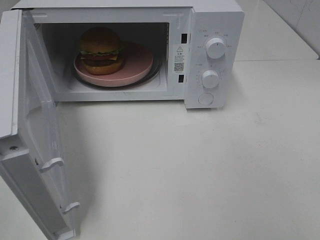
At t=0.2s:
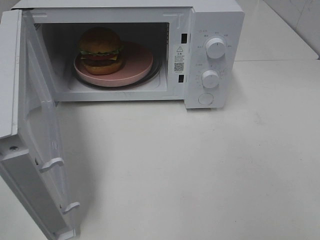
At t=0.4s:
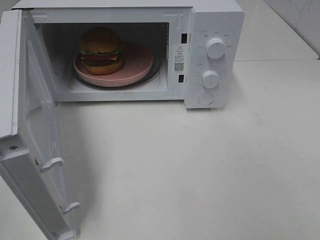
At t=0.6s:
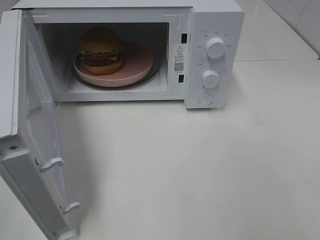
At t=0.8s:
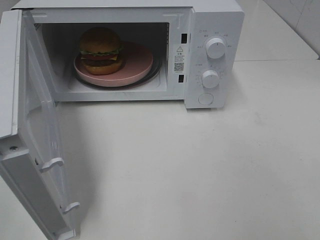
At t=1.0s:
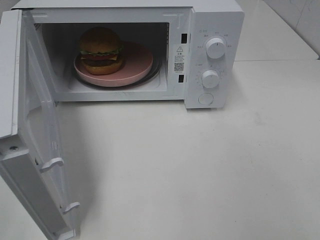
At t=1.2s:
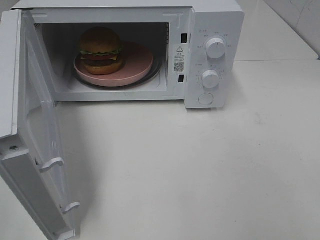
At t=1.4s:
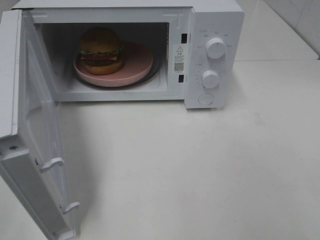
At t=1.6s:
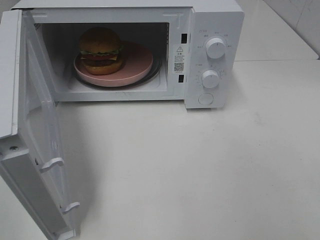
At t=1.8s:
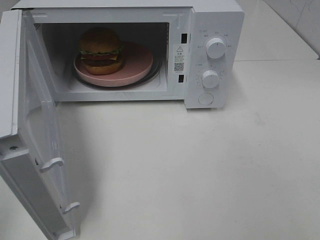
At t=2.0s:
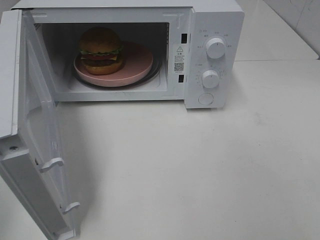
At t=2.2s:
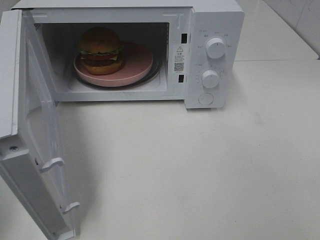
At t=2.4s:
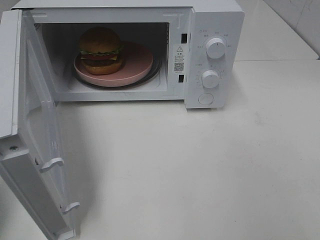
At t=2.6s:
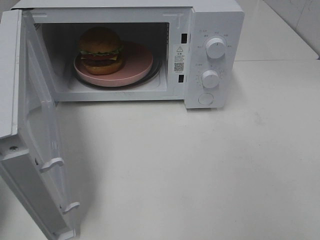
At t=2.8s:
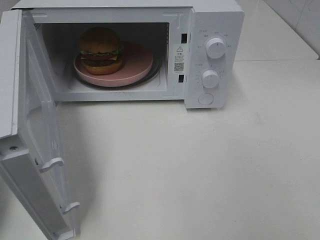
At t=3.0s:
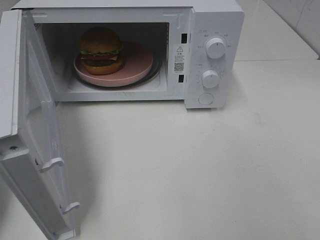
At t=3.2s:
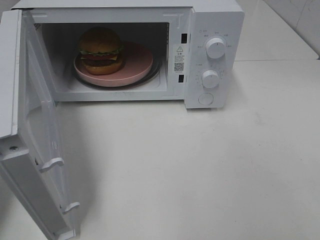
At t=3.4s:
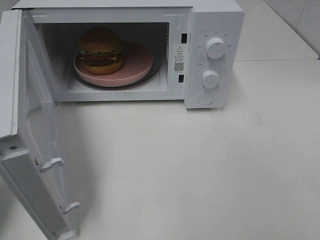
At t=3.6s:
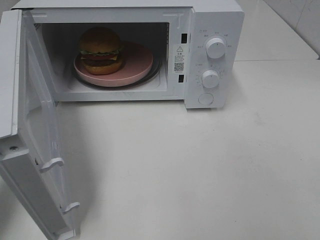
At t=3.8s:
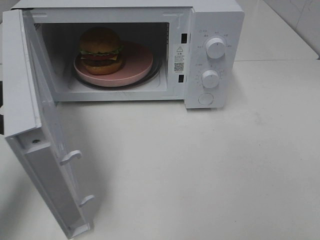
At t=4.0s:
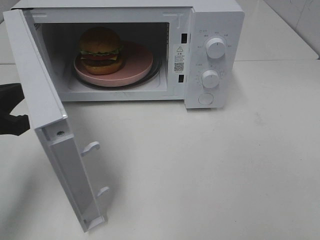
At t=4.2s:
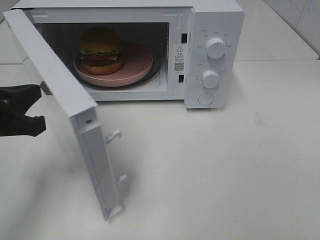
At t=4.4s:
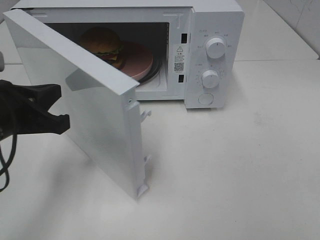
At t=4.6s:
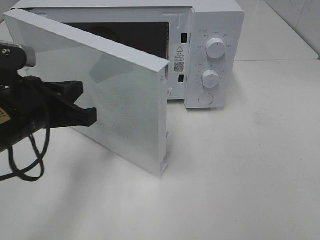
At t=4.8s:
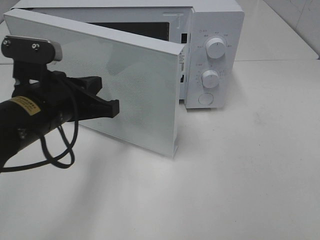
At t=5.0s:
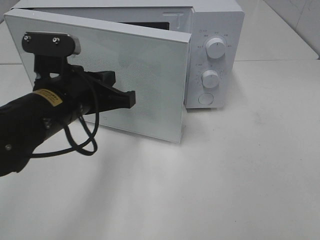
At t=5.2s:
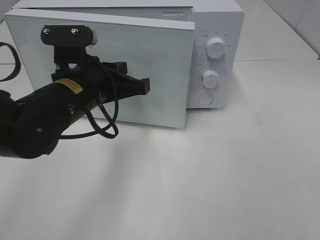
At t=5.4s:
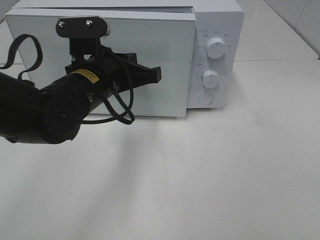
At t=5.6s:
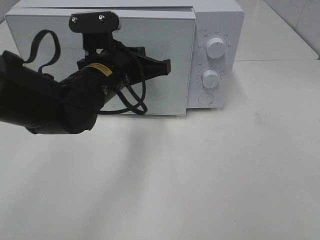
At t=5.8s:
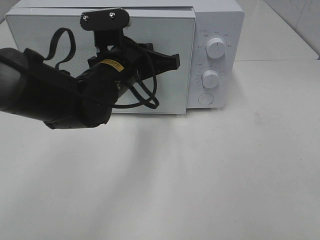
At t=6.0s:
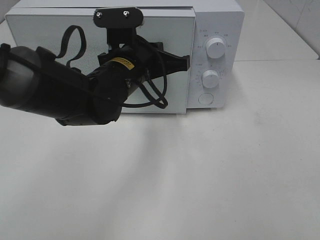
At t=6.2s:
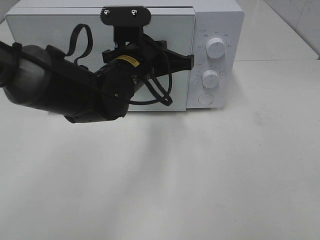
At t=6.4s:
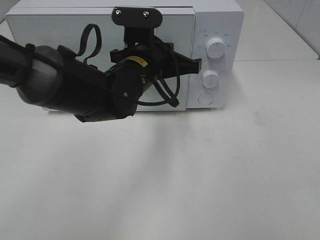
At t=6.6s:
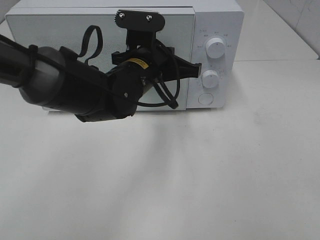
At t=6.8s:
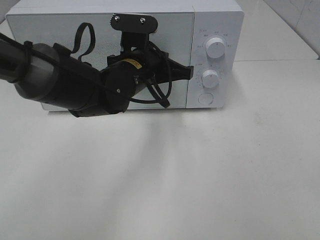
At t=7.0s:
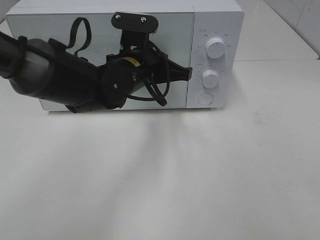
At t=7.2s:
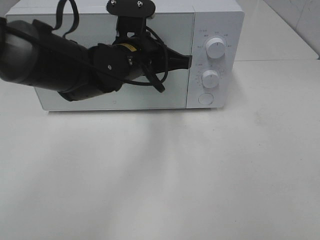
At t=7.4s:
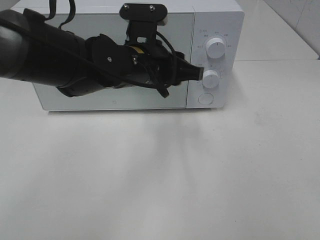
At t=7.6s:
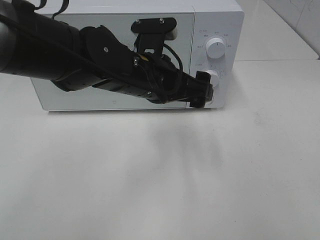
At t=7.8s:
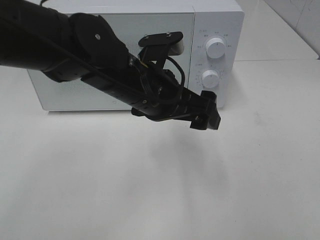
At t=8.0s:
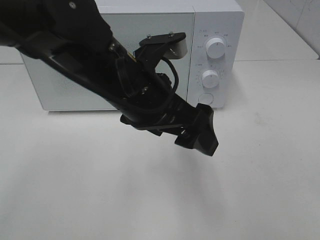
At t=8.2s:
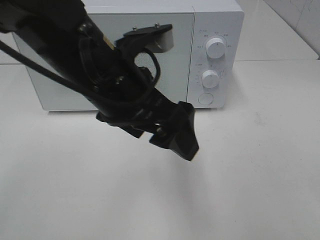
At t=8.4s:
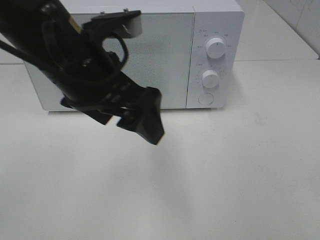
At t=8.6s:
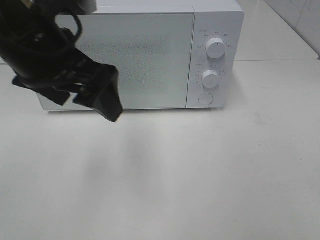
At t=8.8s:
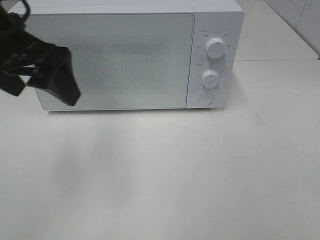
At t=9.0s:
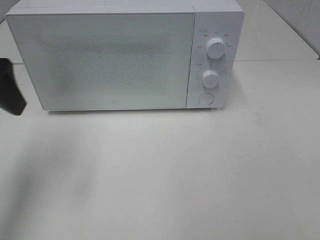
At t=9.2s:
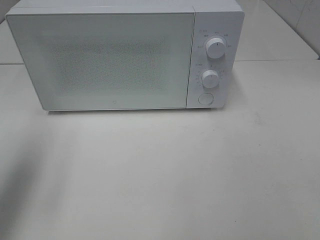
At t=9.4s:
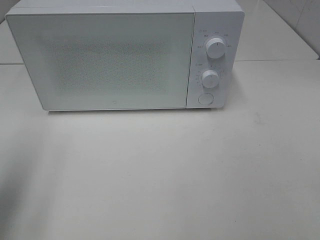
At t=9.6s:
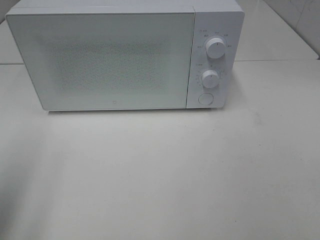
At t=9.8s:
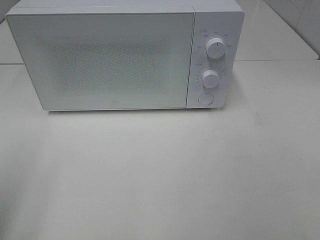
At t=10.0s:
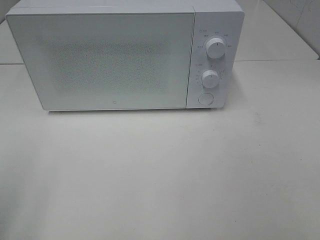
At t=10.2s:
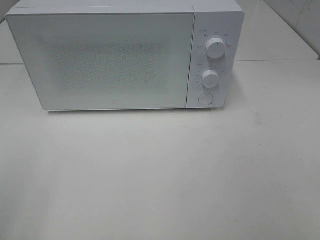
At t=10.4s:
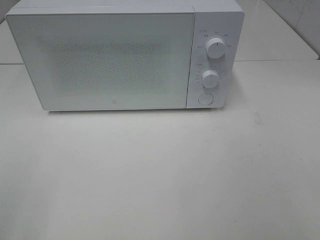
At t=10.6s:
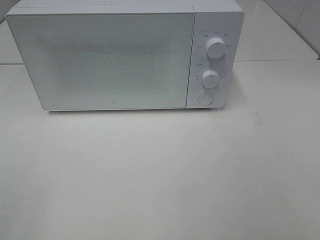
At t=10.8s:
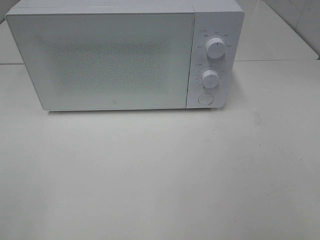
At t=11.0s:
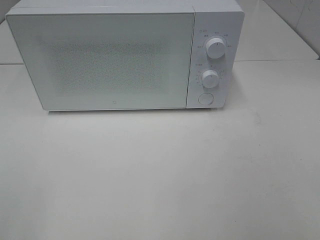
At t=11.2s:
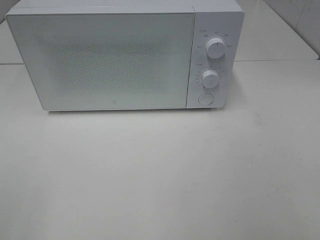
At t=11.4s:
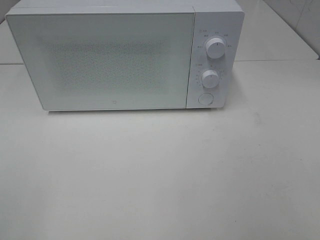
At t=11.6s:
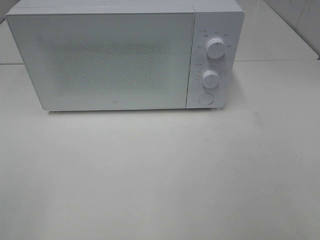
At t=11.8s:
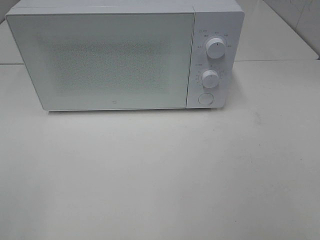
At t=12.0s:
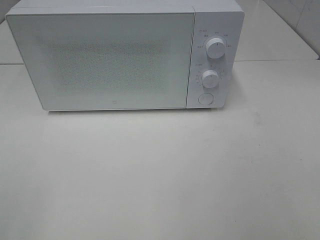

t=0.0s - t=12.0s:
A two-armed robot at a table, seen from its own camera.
Task of the whole recording: Heat the burger.
Step, t=0.0s - t=7.2s: Left hand: close the microwave door.
t=3.0s - t=4.4s: The left gripper travels to the right and downward by about 15 cm.
t=4.4s - t=6.0s: The left gripper is displaced to the right and forward by approximately 20 cm.
t=6.0s - t=7.6s: The left gripper opens.
t=7.6s - t=9.0s: The left gripper is displaced to the left and upward by roughly 25 cm.
t=9.0s - t=10.4s: The left gripper goes approximately 20 cm backward.

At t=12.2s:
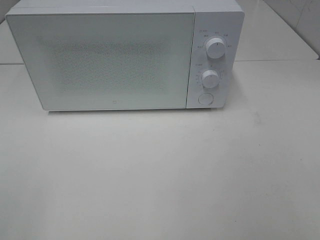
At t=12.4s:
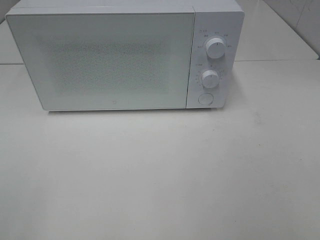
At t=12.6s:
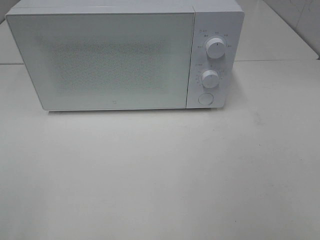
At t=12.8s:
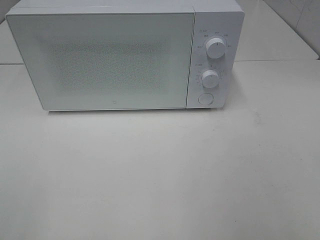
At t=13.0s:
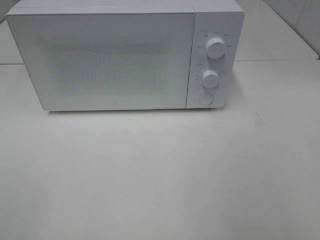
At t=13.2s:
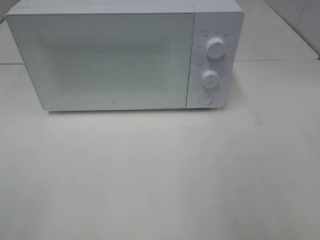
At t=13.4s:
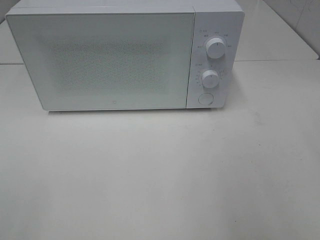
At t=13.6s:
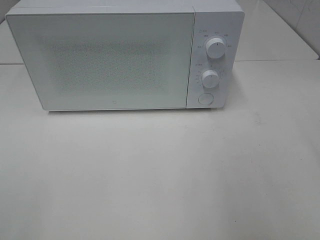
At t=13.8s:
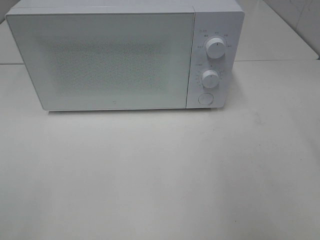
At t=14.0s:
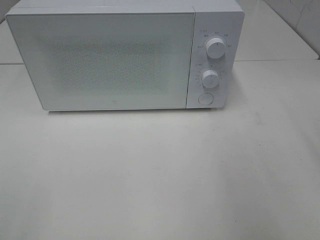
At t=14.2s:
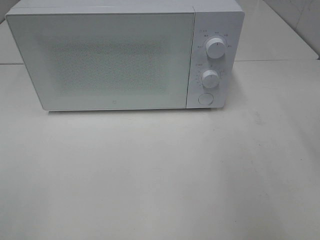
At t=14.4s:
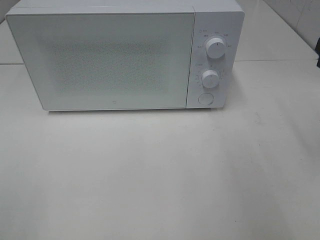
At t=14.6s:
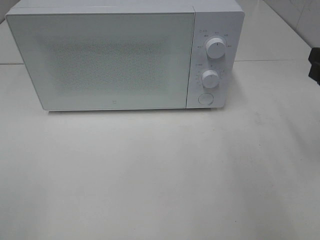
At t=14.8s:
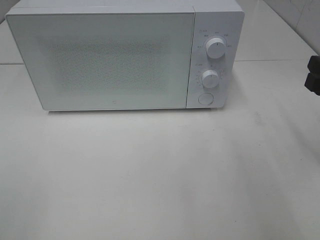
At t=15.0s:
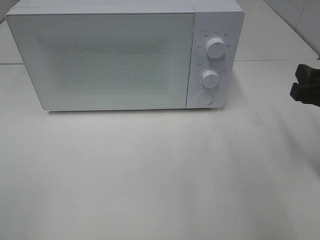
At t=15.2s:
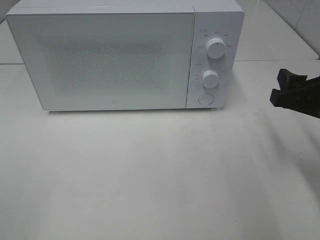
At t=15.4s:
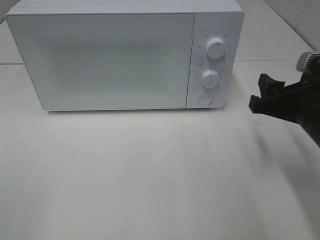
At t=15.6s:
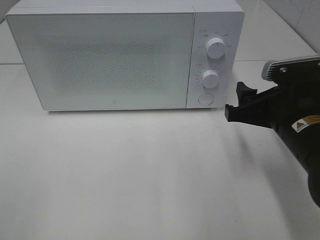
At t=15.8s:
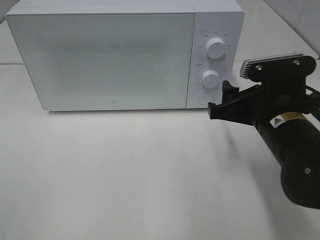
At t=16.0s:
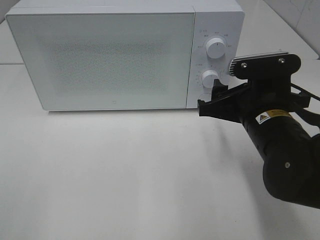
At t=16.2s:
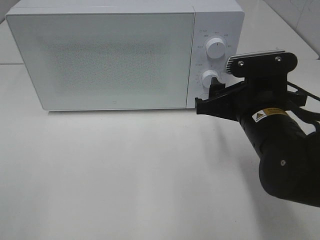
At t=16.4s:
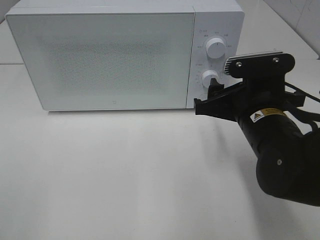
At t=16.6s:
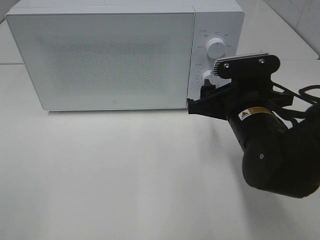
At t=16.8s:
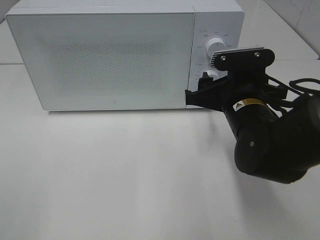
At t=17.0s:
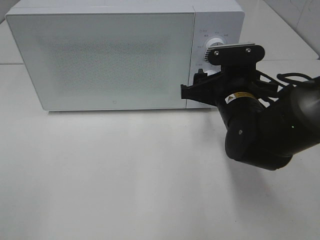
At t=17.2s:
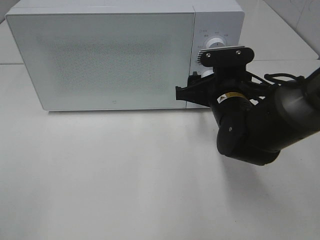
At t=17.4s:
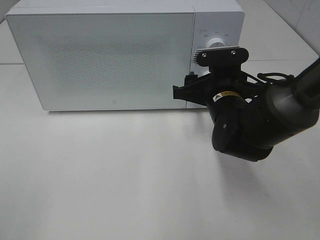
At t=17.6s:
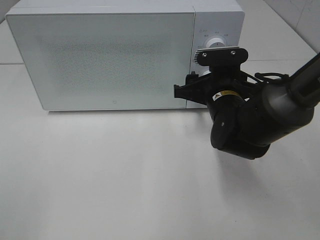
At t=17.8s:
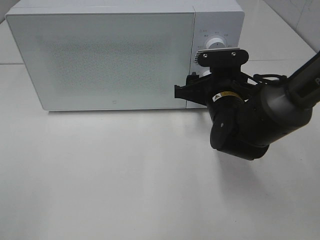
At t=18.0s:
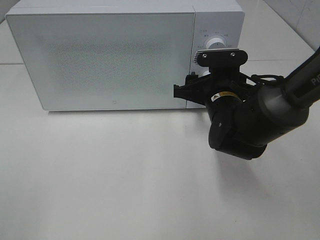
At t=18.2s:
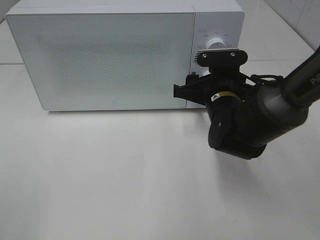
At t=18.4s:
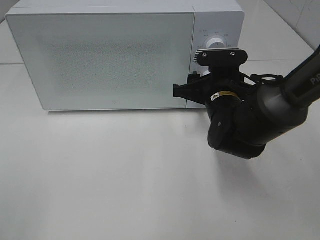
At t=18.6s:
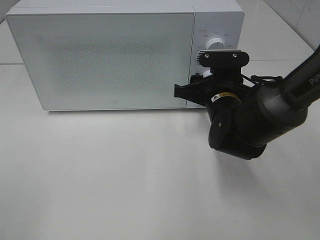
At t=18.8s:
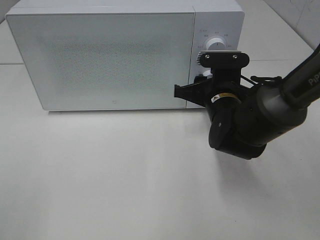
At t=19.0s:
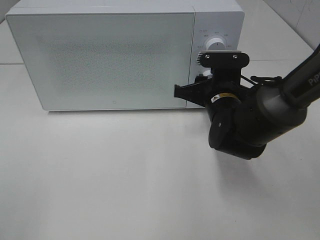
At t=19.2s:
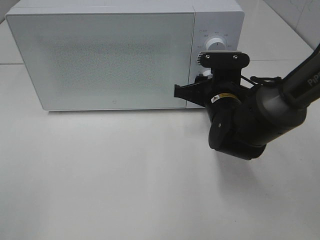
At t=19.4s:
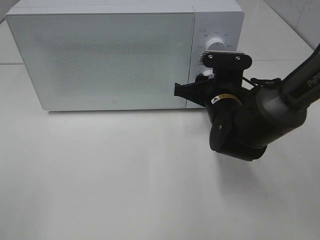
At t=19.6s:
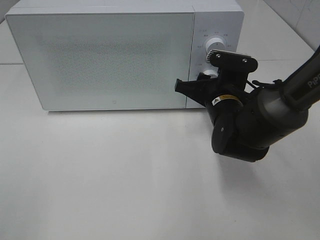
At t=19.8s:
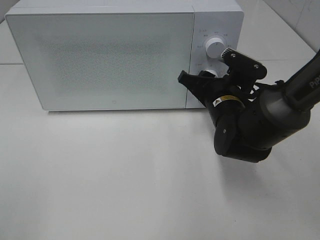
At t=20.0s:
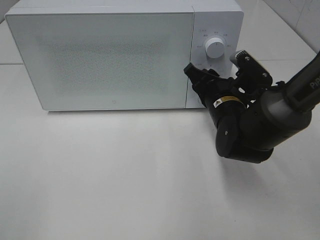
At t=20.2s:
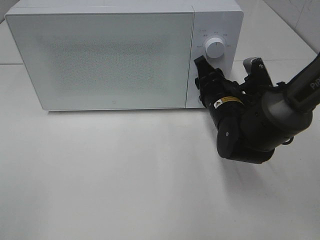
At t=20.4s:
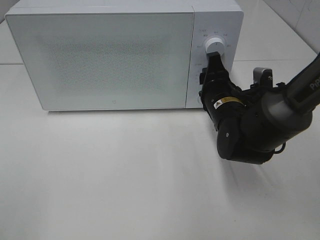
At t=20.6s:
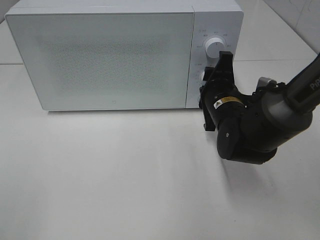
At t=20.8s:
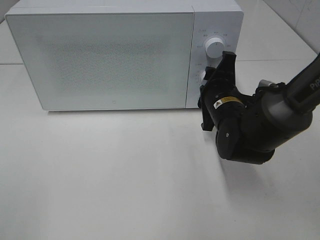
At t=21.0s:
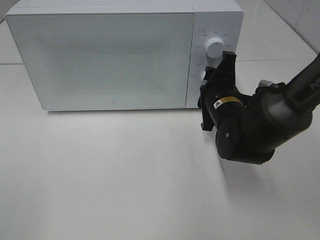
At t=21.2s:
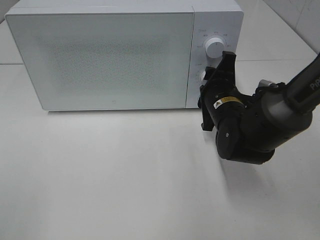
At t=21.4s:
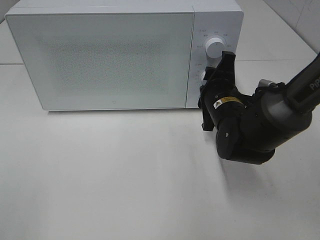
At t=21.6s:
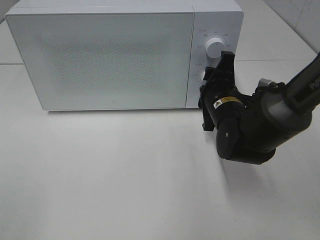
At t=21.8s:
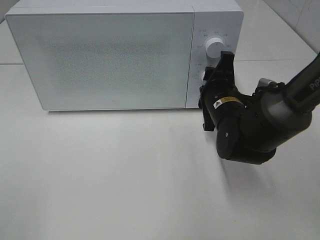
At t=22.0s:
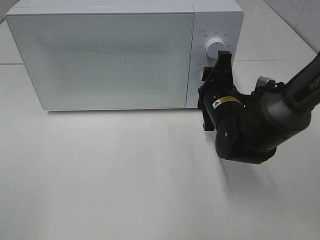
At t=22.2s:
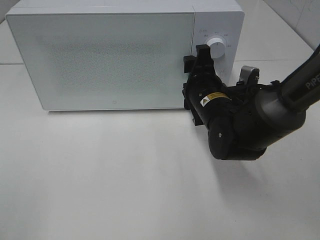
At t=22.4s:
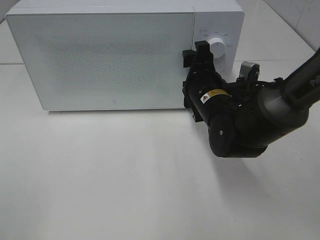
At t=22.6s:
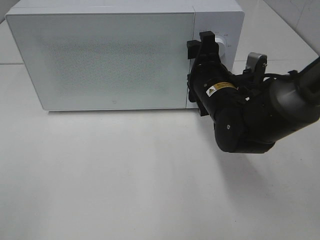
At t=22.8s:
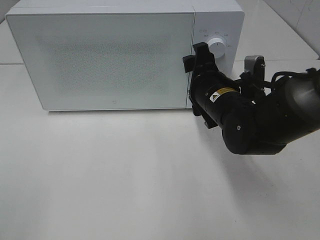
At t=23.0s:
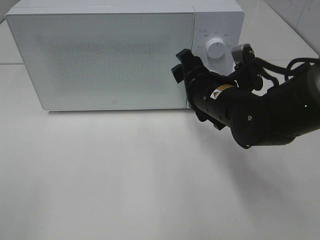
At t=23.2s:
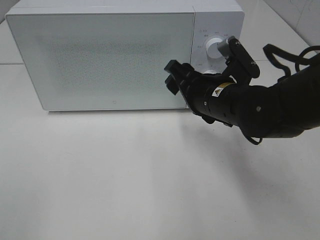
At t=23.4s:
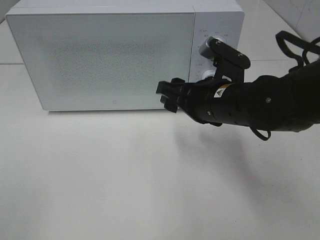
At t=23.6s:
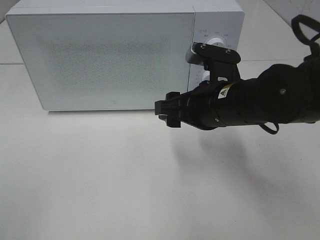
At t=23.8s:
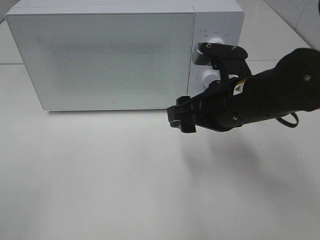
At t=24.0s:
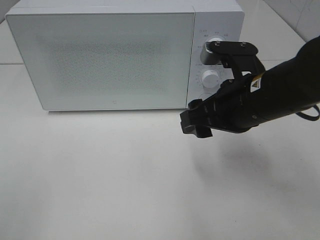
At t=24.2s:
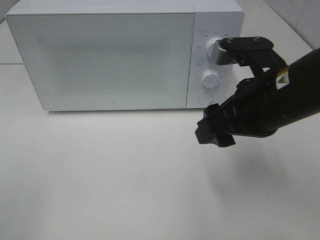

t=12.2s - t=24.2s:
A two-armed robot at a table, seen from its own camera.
Task of the whole recording: Heat the burger.
Step, t=12.2s - t=22.0s: Right hand: twist timer button.
t=13.8s - t=15.2s: The right gripper goes about 15 cm downward and forward.
t=15.2s - t=16.6s: The right gripper shifts approximately 10 cm to the left.
t=16.6s - t=18.2s: The right gripper moves forward, some 5 cm.
t=21.2s - t=22.6s: The grippers move only a little.
t=22.6s - t=24.2s: The right gripper goes about 15 cm backward and upward.
